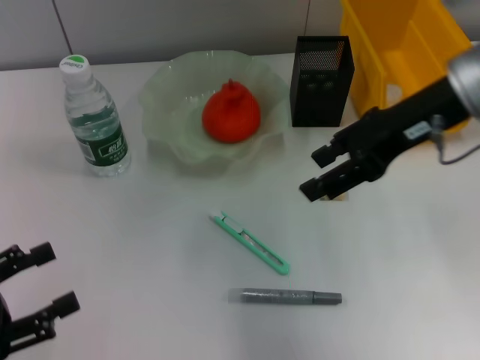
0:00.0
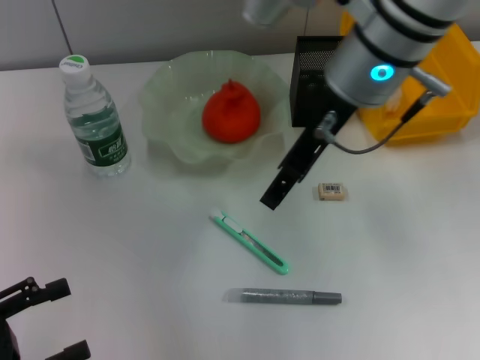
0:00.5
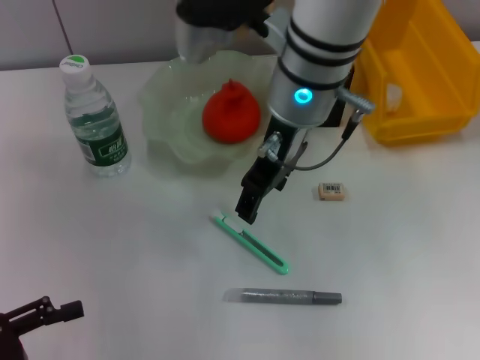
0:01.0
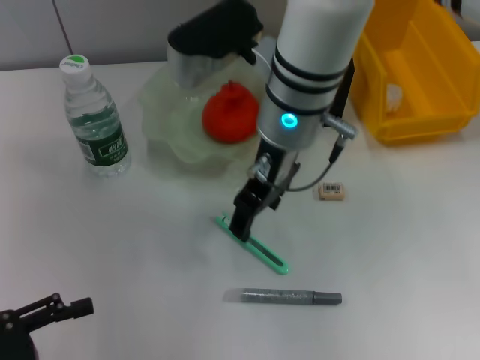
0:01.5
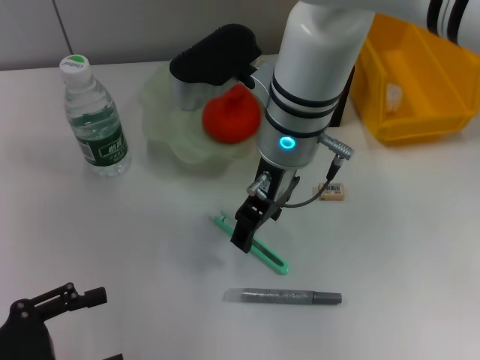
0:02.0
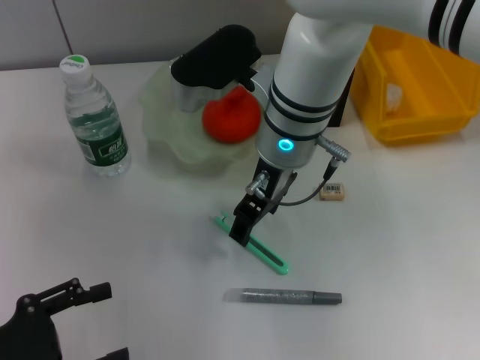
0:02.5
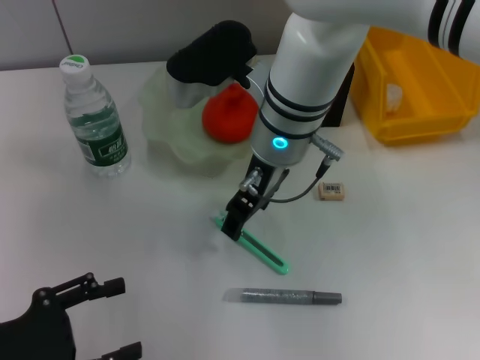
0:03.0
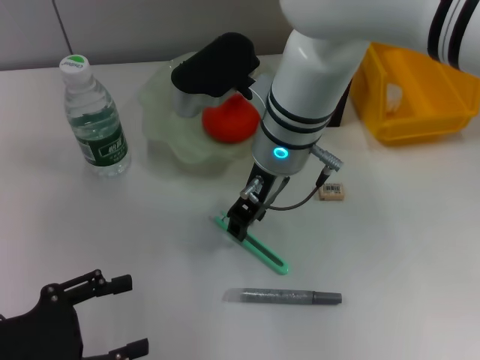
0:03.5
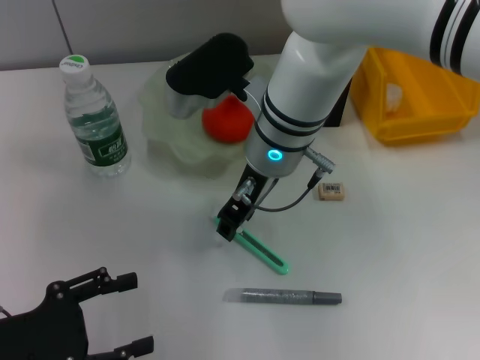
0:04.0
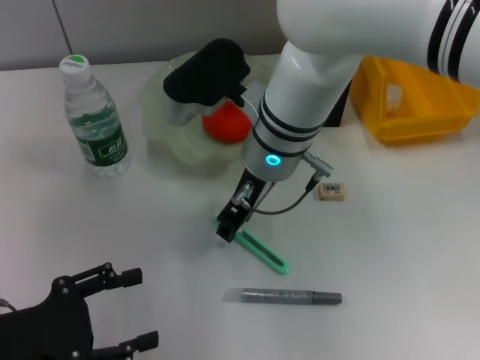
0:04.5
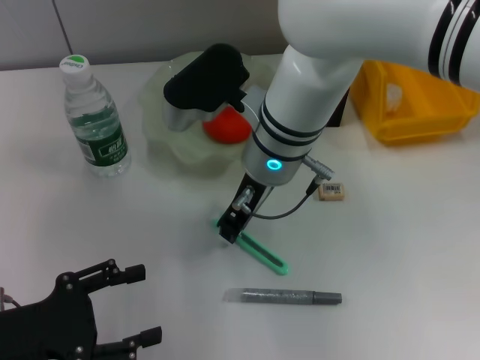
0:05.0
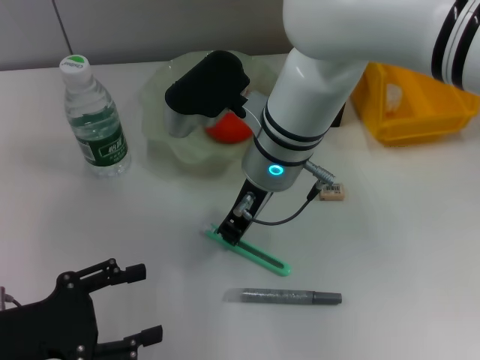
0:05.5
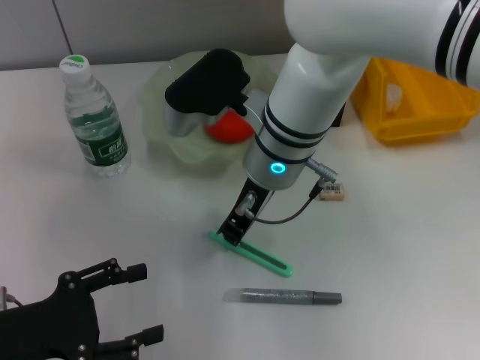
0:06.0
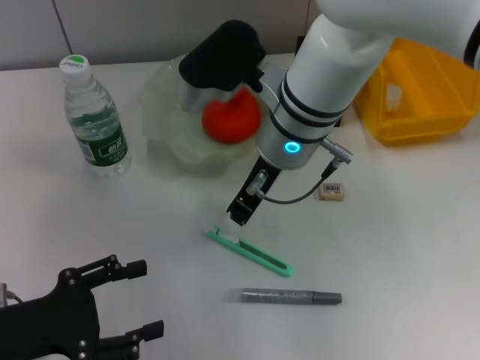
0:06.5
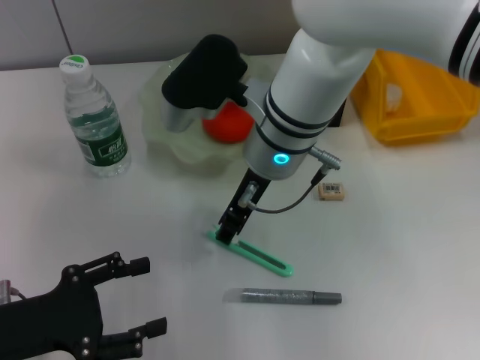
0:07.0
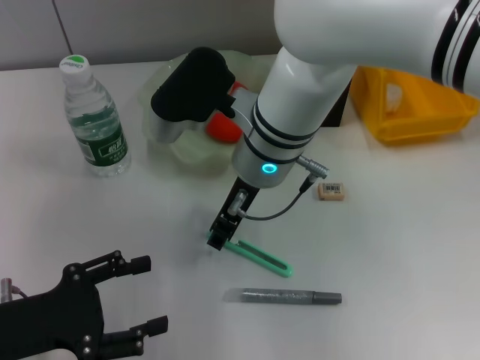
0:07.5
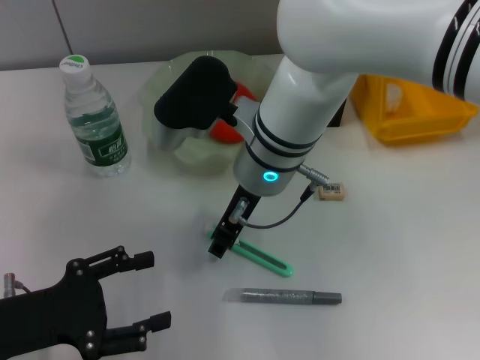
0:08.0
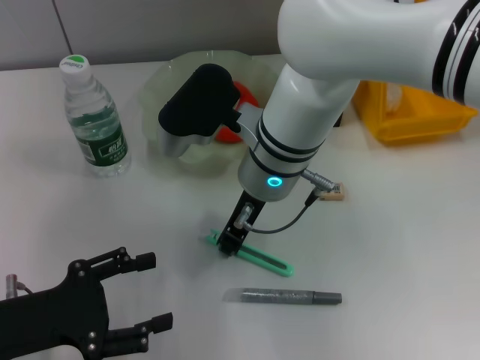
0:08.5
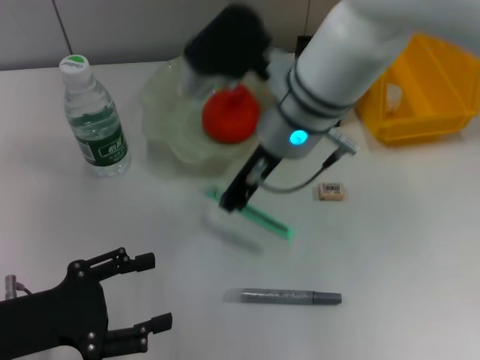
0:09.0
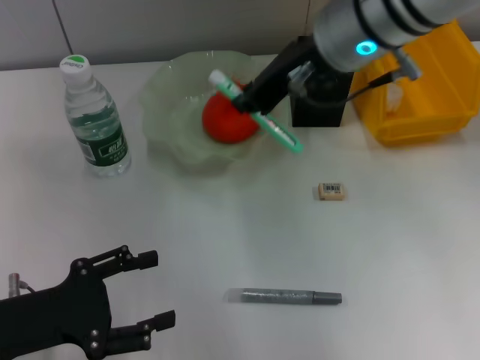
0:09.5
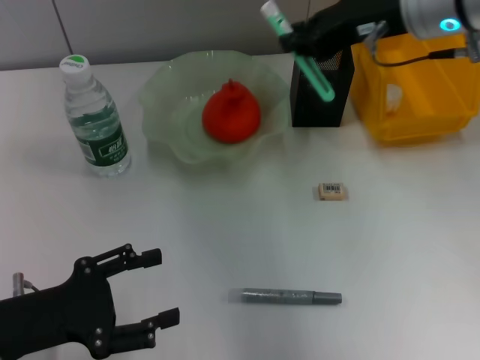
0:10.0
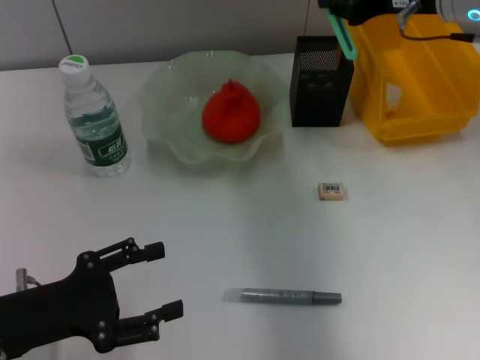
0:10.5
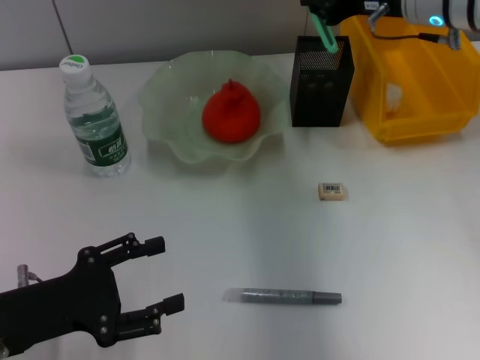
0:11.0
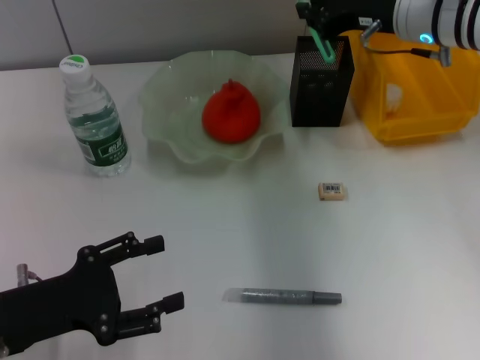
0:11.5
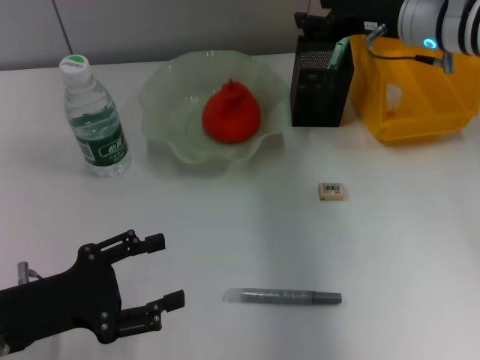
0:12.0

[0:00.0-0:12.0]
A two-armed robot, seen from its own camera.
Step, 0:00.0 to 0:08.5: Grab the blue utility knife with the right hand.
0:00.0 to 0:02.0: The right gripper goes approximately 15 cm to the left.
0:02.0 to 0:04.0: The right gripper closes its fingers.
0:04.0 to 0:06.0: The right gripper closes up.
0:06.0 to 0:08.0: The right gripper opens its fingers.
0:08.0 to 0:10.0: The right gripper is displaced to the right and upward by about 20 cm, and closes.
0:10.0 to 0:12.0: The right gripper moves downward, about 5 cm.

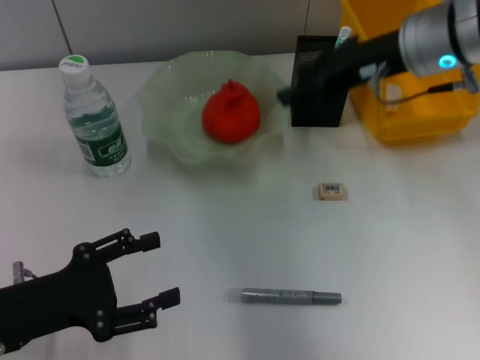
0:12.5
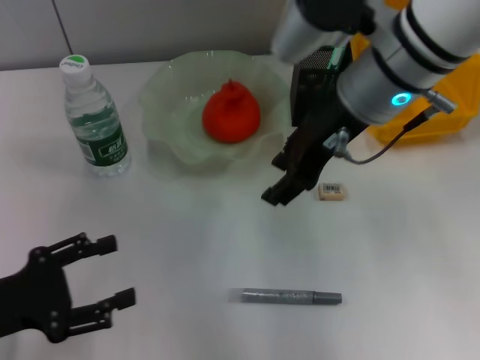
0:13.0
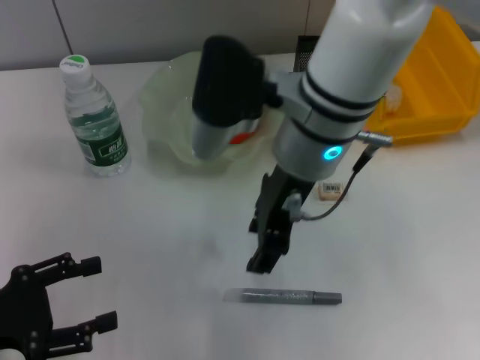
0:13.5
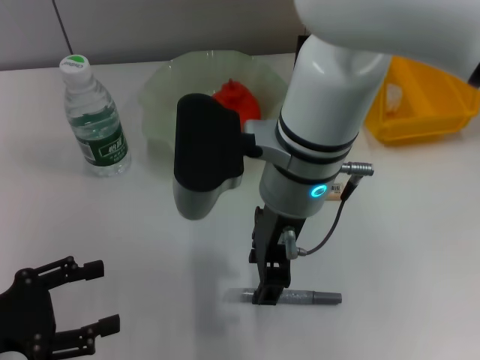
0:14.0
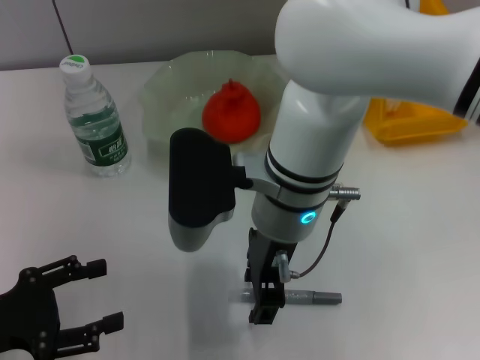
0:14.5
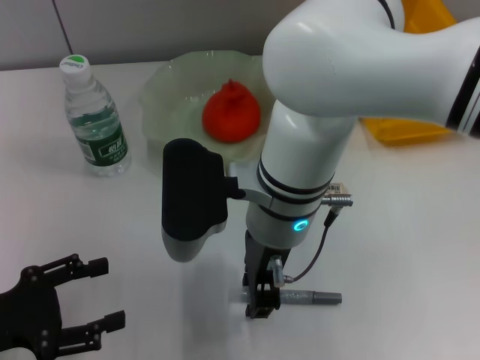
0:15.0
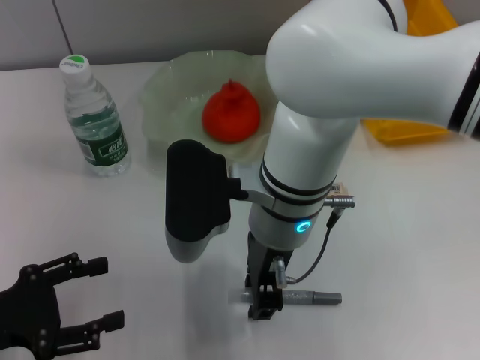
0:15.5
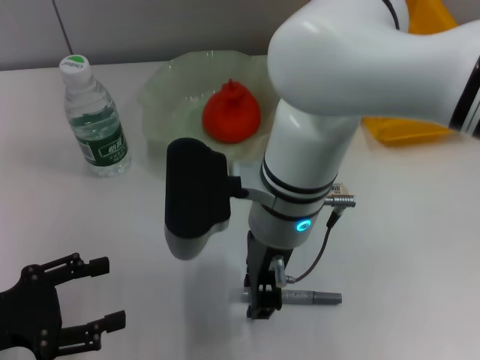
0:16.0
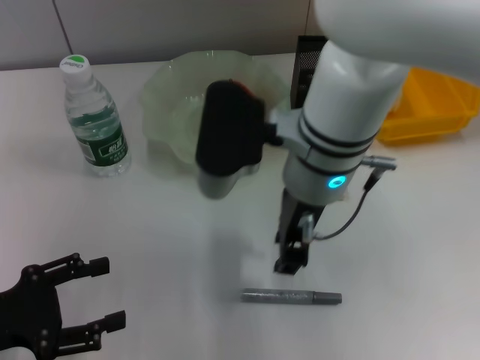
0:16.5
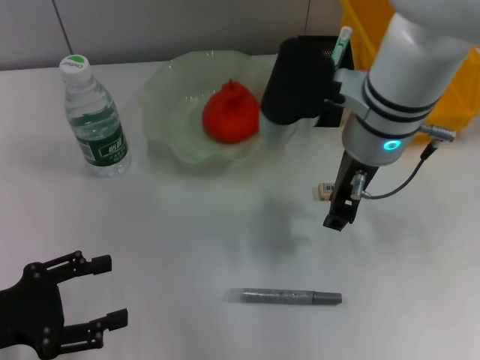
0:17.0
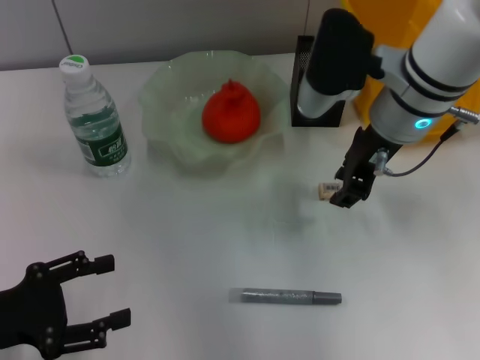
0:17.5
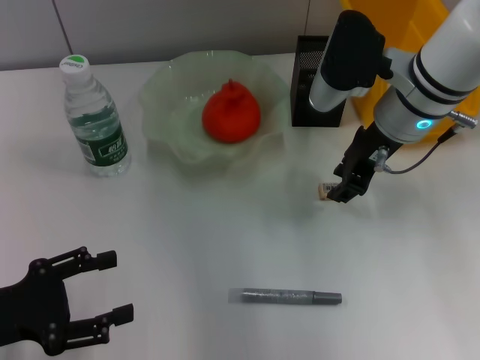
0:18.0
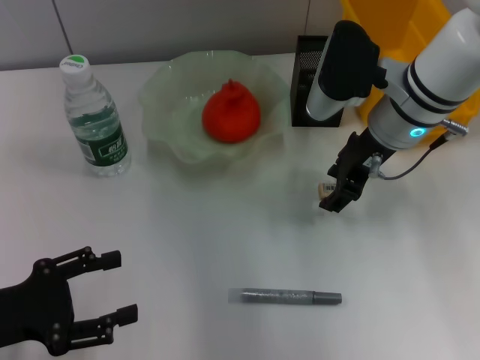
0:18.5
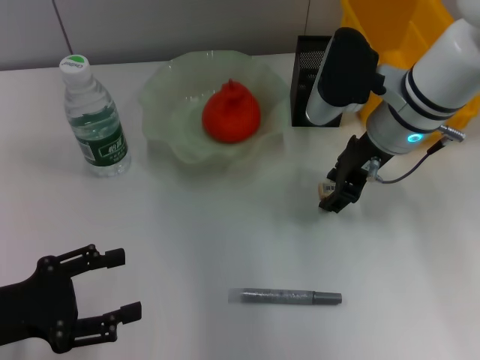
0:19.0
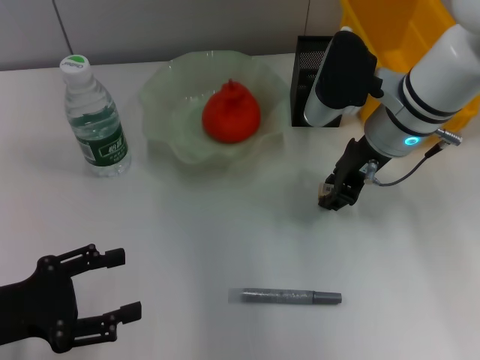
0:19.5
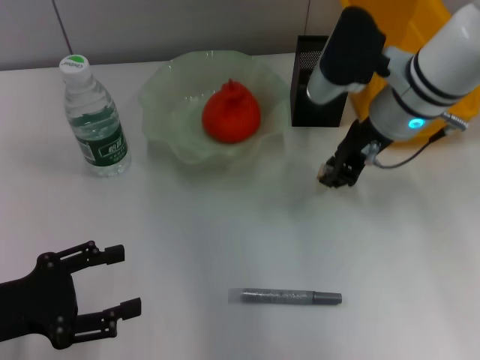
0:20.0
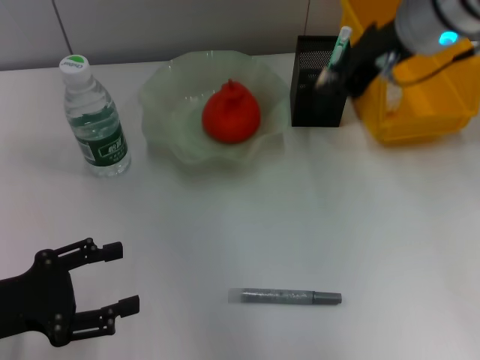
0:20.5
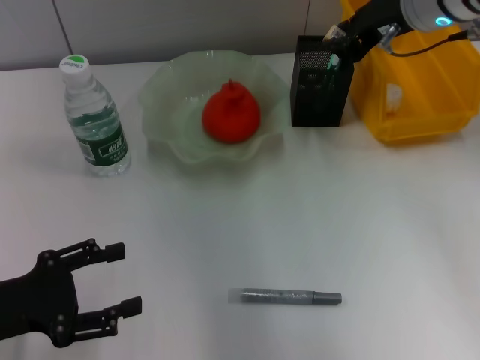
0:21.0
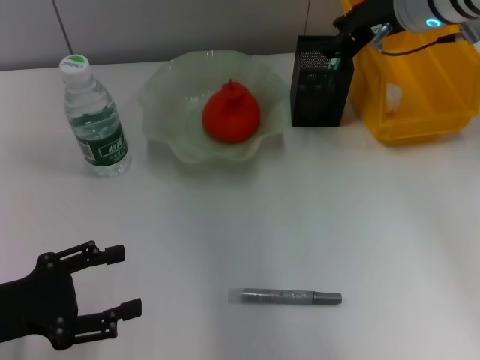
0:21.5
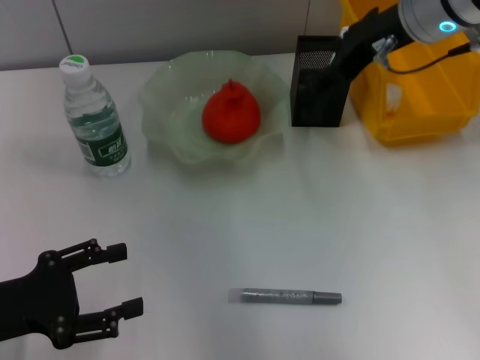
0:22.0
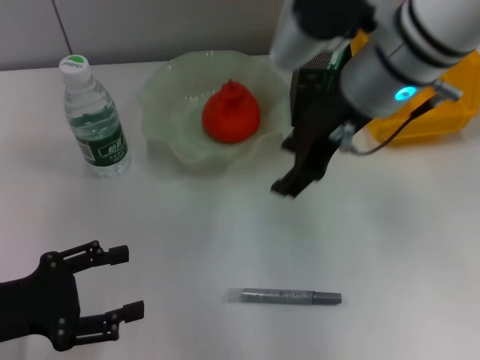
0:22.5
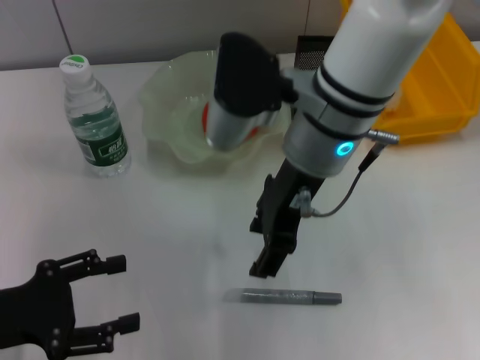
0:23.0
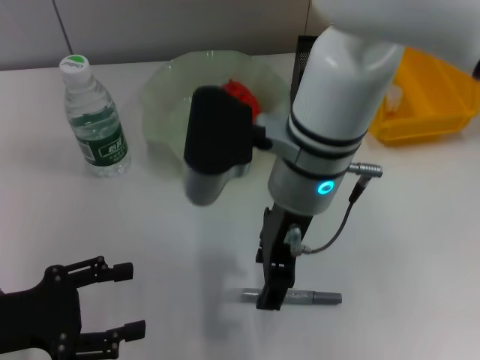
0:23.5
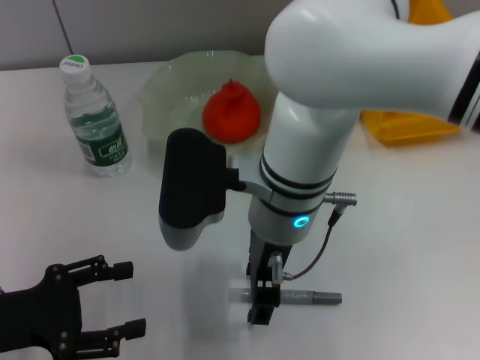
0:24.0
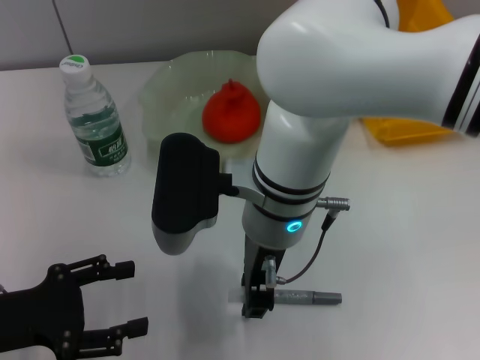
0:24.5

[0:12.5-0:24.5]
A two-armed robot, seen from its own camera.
Step, 0:13.0 to 0:19.5: Grab the eraser with the right hand.
Step, 0:20.0 to 0:22.0: Put the eraser into the pen holder with the right hand.
0:12.5 to 0:14.5: The right gripper travels to the left and backward by roughly 20 cm. Meanwhile the left gripper moves approximately 5 cm.
0:16.5 to 0:18.5: The right gripper is displaced to the right and forward by approximately 10 cm.
0:18.5 to 0:20.5: The right gripper goes about 10 cm upward, and closes its fingers.
0:20.5 to 0:22.5: The right gripper shifts about 5 cm to the left, and opens.
0:22.5 to 0:24.5: The right gripper moves to the left, downward and backward, approximately 15 cm.

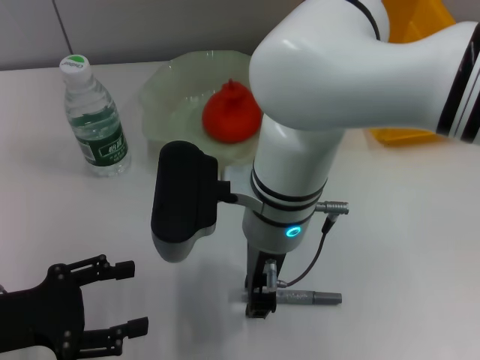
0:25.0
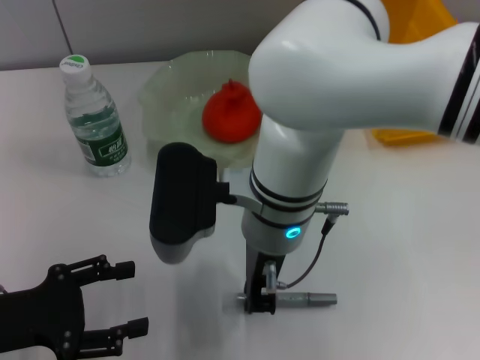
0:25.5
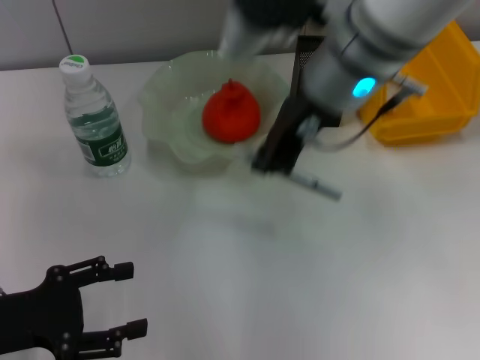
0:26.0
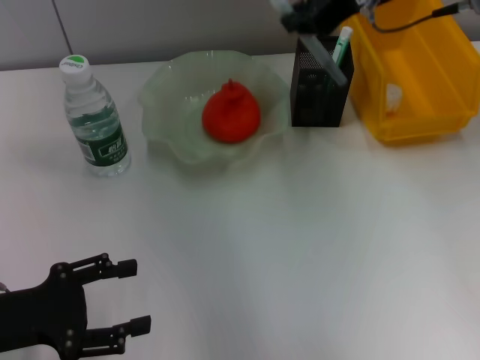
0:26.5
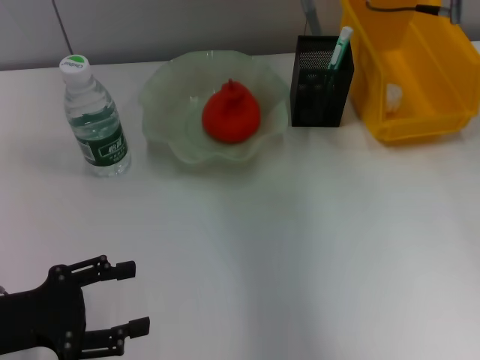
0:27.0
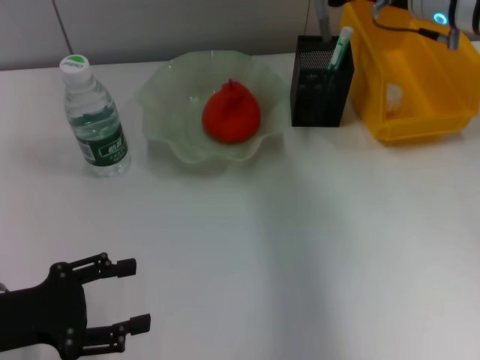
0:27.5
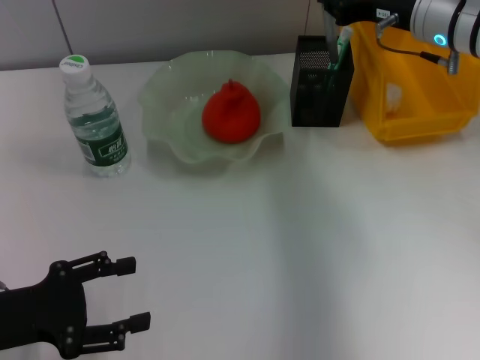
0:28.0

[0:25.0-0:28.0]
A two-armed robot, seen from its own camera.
0:25.0 to 0:26.5: The right gripper moves to the right, upward and forward, about 25 cm, and closes up.
0:26.5 to 0:28.0: The right gripper shifts about 10 cm downward and to the right.
